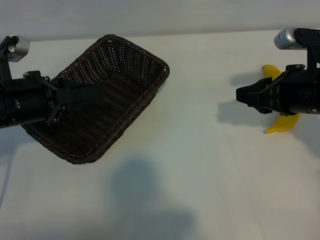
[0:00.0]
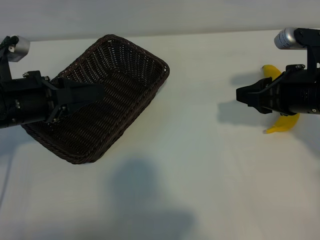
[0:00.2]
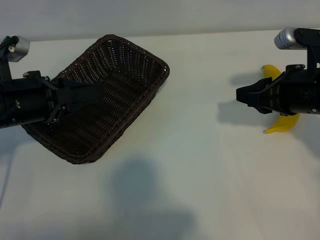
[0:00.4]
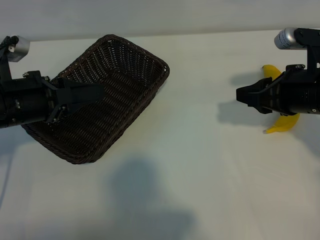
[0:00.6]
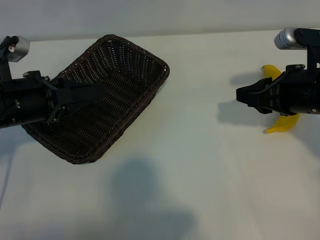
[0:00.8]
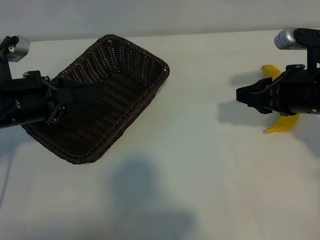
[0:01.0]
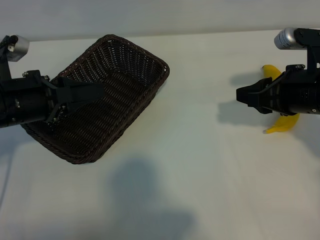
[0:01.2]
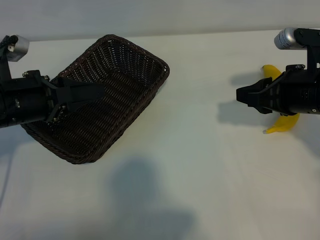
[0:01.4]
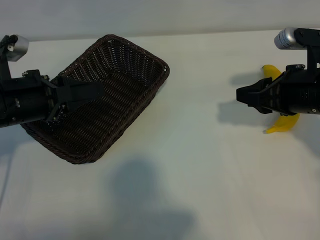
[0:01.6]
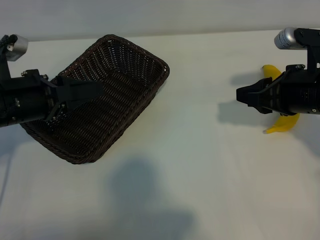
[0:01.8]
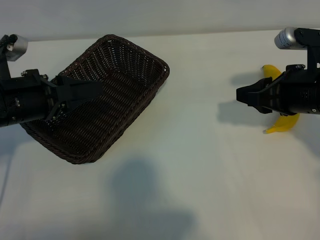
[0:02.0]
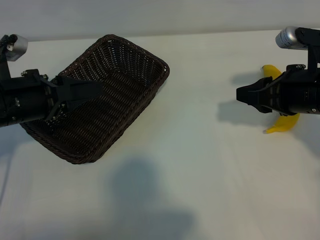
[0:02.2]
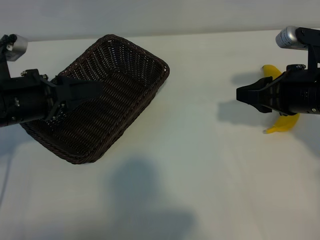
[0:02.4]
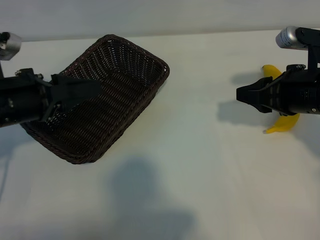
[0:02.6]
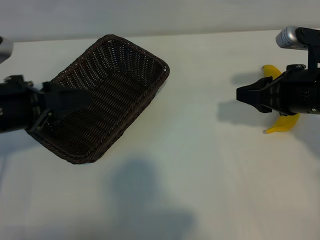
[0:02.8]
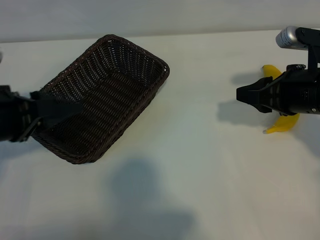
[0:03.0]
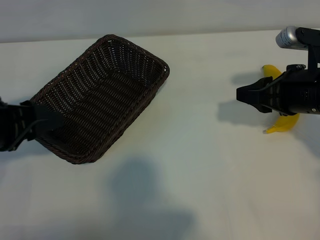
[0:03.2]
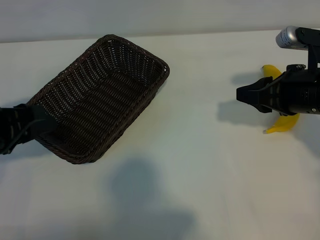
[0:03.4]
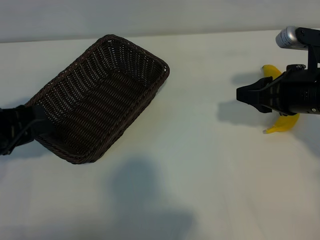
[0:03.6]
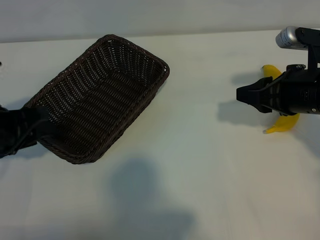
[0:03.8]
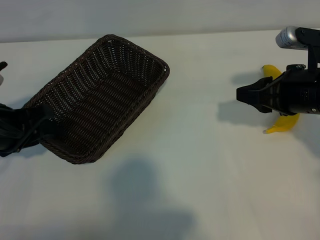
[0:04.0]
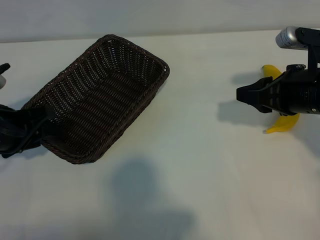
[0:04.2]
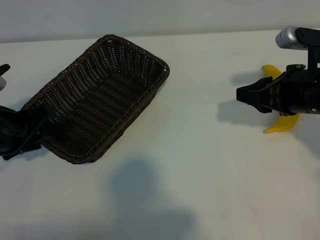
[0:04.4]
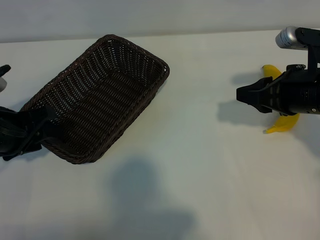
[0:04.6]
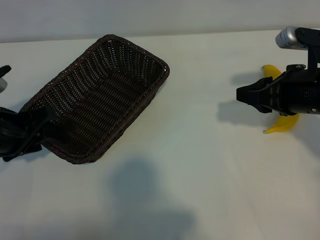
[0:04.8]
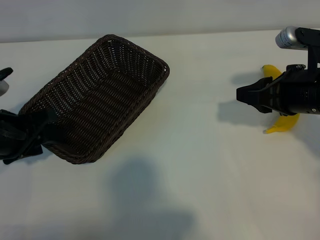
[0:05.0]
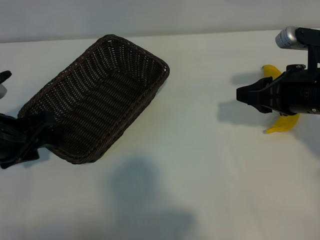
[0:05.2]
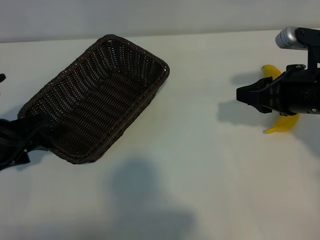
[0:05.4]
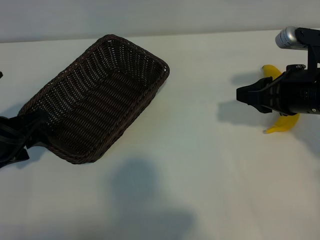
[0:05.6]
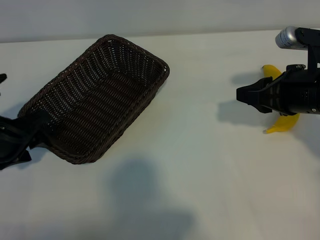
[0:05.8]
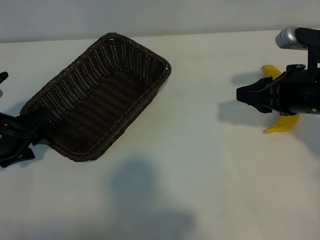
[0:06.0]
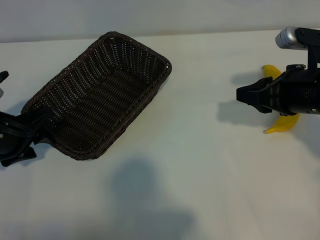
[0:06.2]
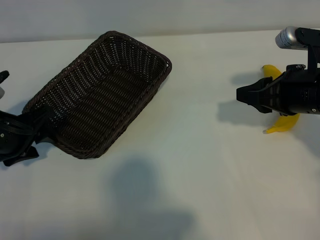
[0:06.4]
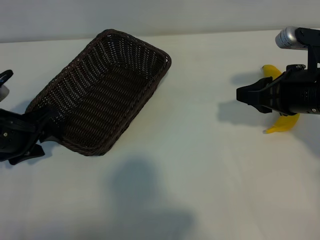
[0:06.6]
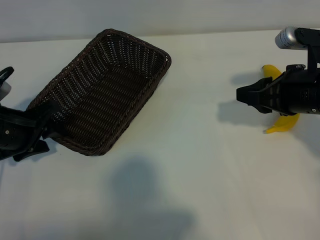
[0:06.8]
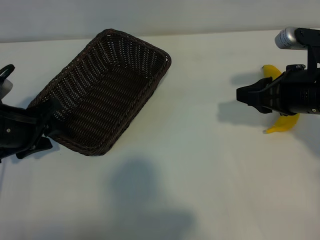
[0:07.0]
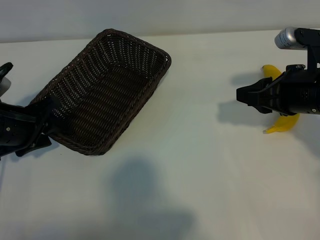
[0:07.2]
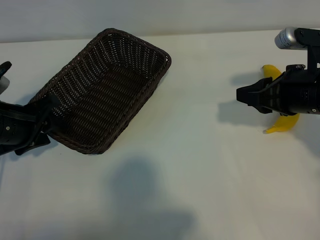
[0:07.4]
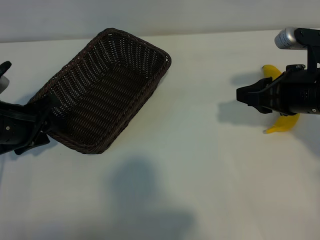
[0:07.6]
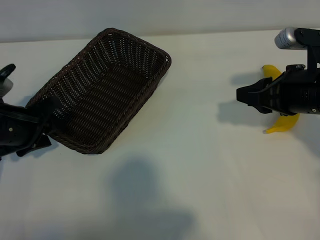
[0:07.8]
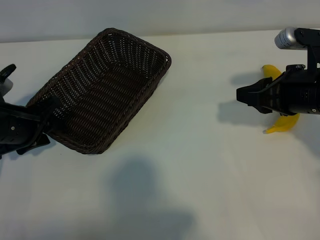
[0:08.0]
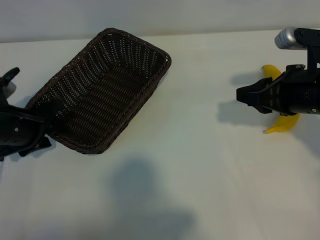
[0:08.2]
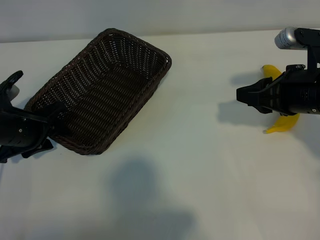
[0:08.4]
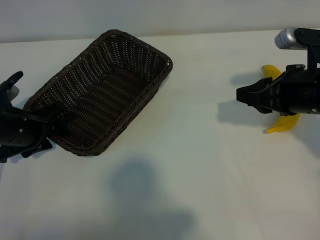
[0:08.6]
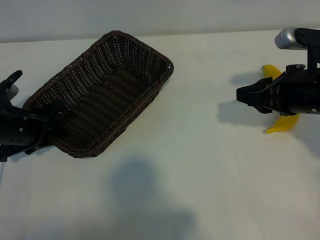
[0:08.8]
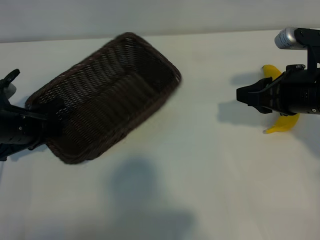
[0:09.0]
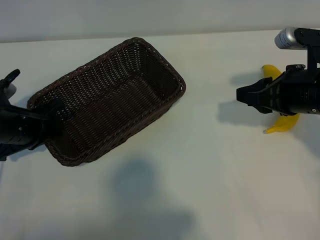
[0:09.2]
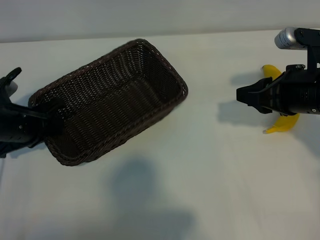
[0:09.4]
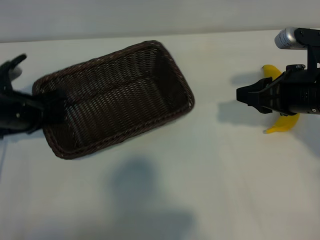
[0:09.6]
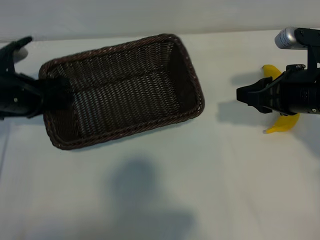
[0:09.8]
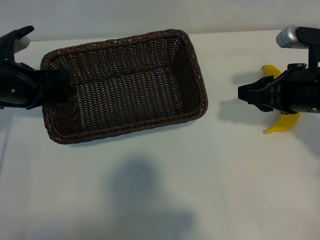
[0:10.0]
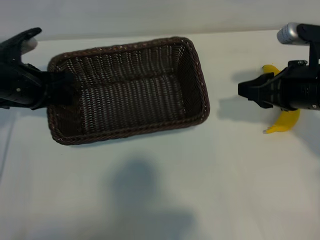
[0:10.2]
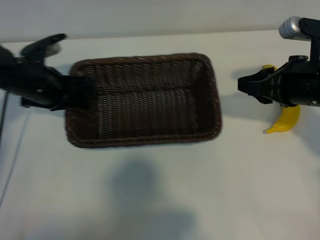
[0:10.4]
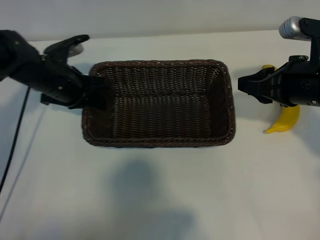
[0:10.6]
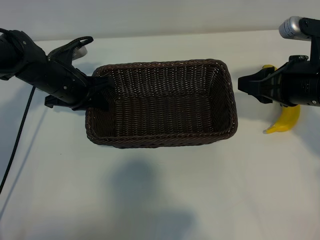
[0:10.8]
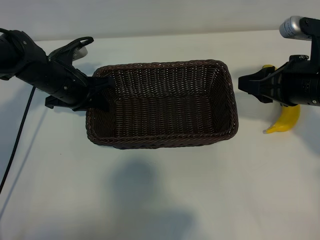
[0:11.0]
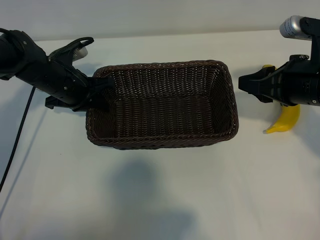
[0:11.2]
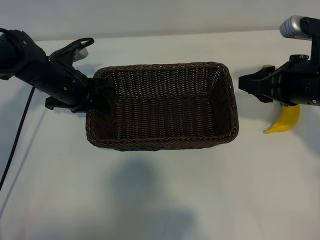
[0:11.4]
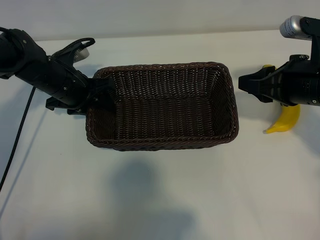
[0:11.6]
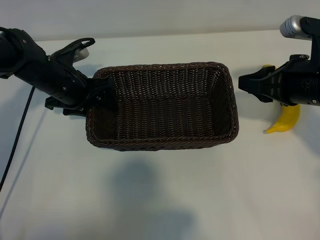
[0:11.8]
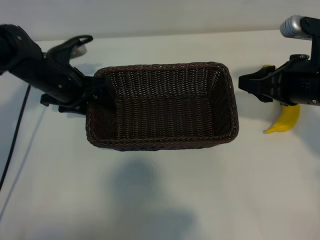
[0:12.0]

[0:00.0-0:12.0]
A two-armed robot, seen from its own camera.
Task of the whole recording: pick up the banana and put it into the basket.
Step, 0:01.0 to 0:09.0: Grasp the basket with the left gripper.

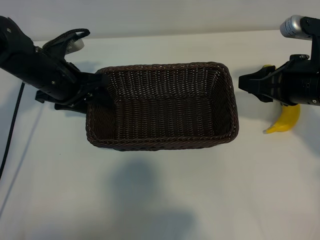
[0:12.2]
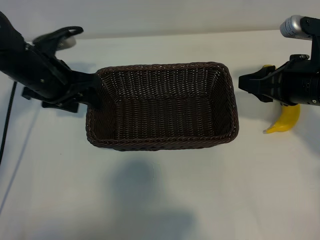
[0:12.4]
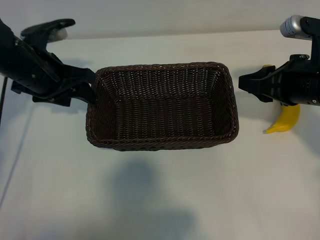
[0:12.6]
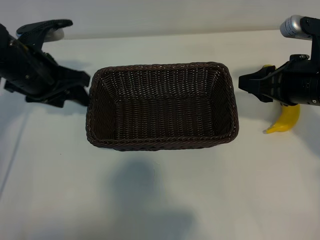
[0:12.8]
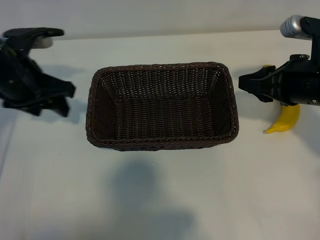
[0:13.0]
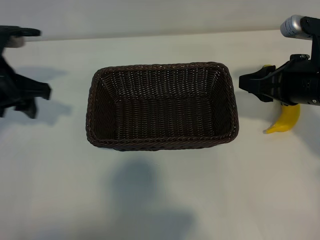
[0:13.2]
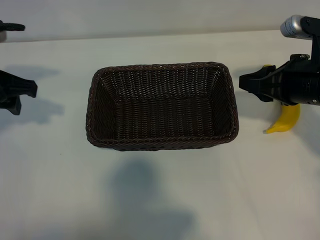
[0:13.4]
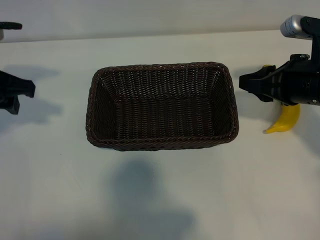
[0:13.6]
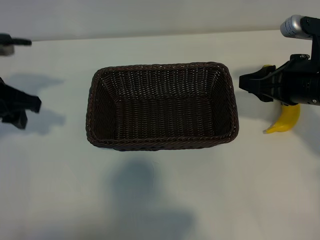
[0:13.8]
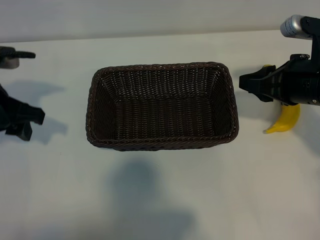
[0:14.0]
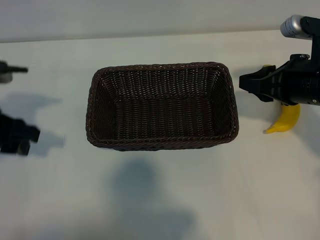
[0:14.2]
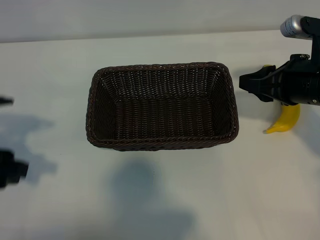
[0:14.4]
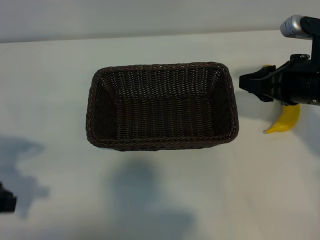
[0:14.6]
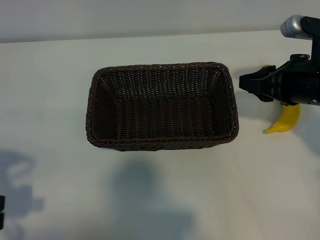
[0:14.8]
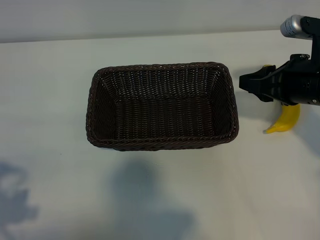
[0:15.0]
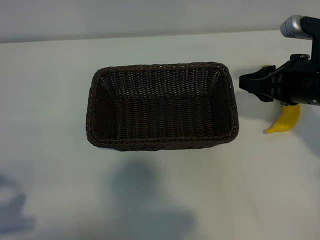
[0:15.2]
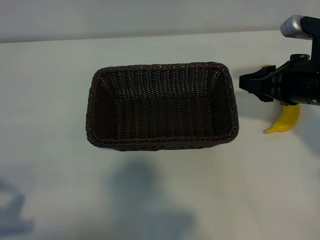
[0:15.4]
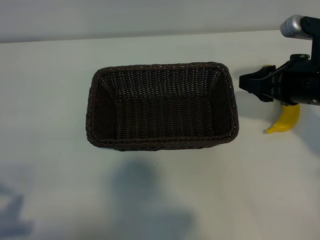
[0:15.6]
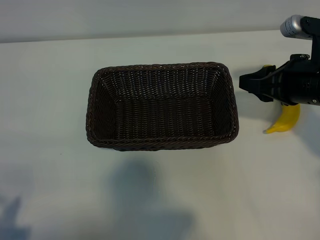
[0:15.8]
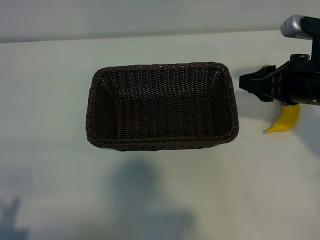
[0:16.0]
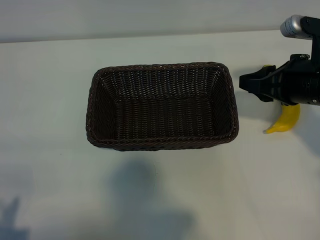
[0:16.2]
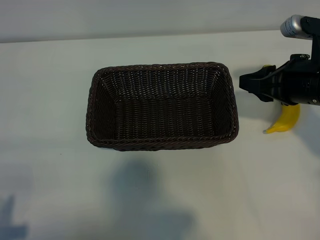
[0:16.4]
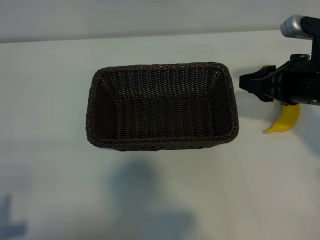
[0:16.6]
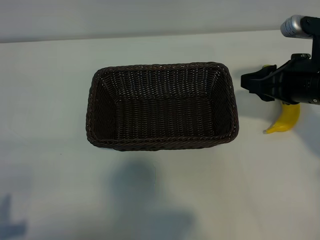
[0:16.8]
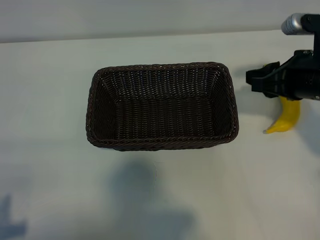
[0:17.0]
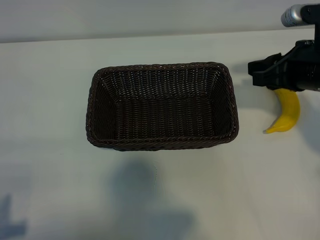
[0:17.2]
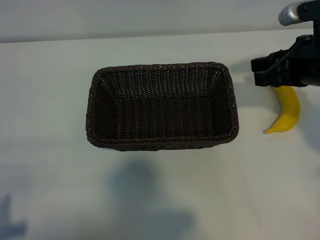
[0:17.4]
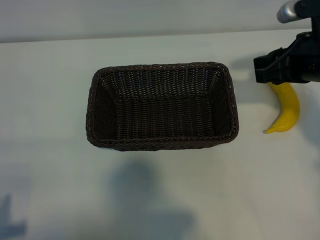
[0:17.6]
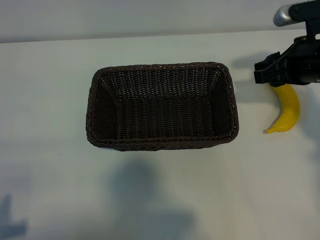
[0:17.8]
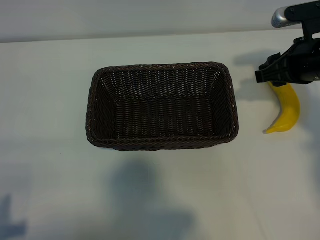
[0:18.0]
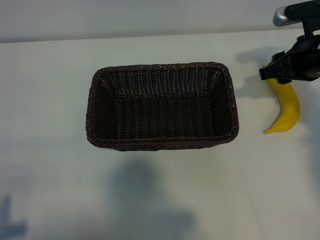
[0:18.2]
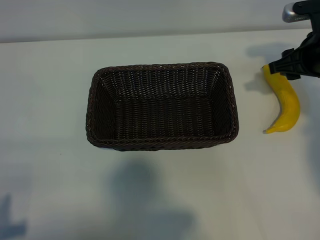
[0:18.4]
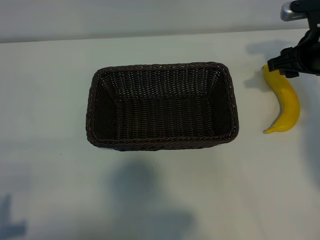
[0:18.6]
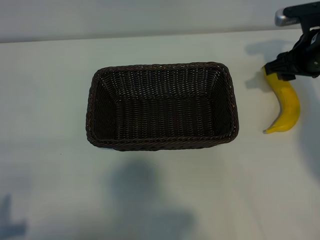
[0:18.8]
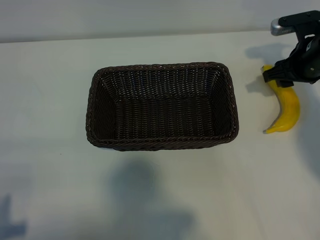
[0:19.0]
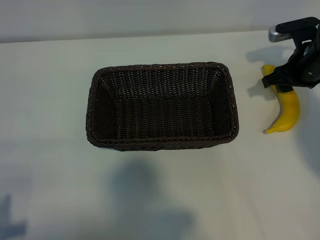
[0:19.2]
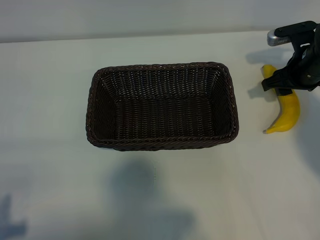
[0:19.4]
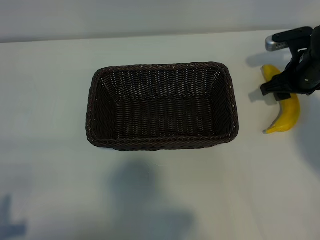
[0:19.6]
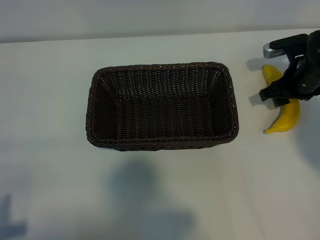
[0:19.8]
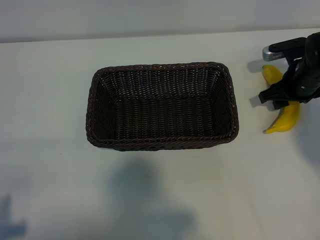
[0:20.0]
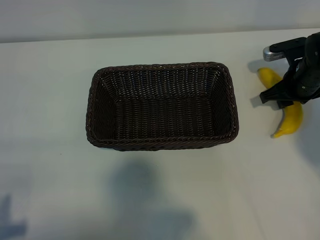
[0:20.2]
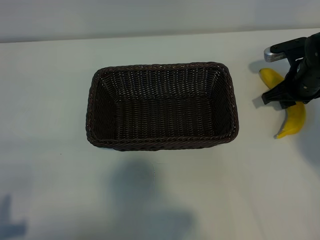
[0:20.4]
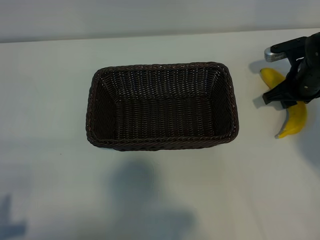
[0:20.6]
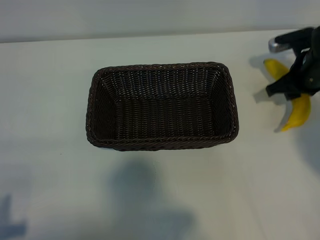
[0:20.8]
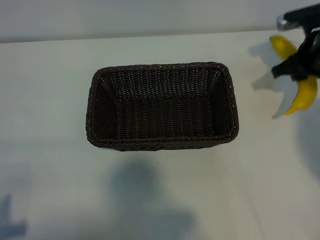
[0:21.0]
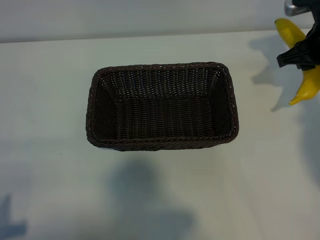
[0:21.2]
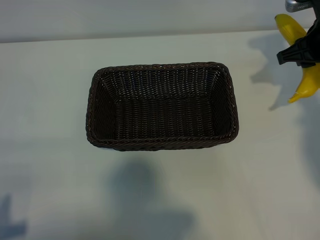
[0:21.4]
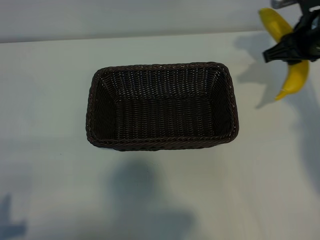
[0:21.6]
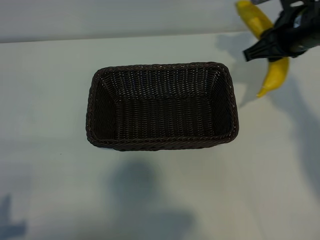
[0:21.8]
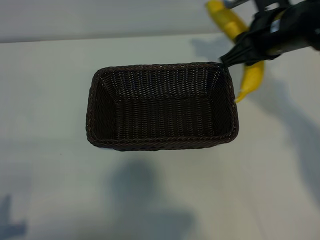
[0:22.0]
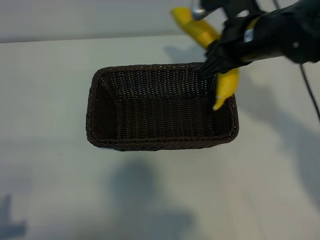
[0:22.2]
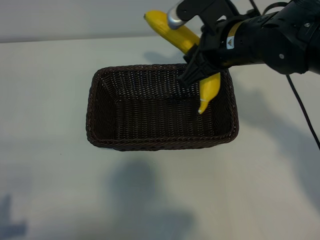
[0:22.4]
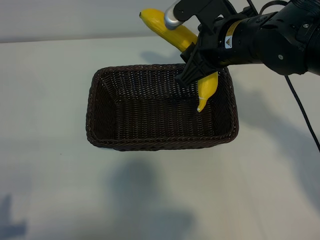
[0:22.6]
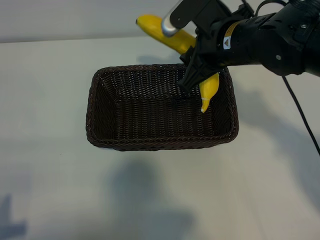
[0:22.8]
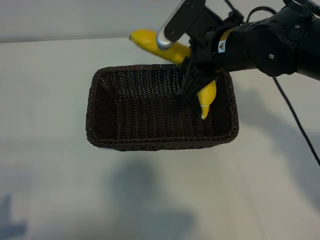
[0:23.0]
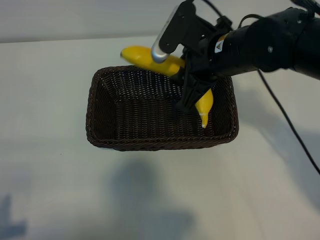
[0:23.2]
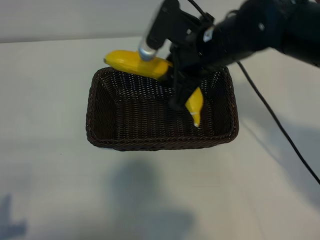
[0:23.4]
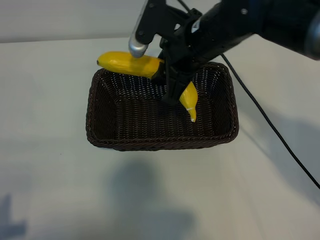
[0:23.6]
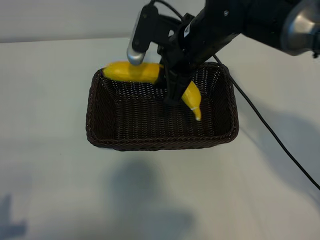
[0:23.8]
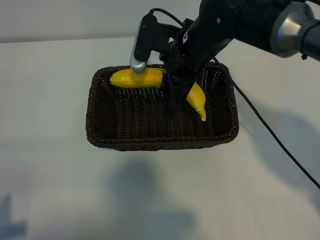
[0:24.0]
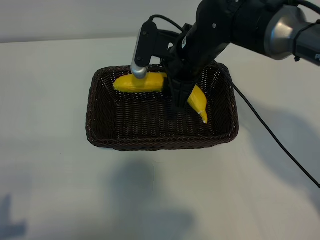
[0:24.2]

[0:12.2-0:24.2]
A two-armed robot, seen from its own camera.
Task of the whole recording: pick up the banana and put it into the basket.
Step, 0:13.0 to 0:20.2: Grasp the banana with right gripper.
